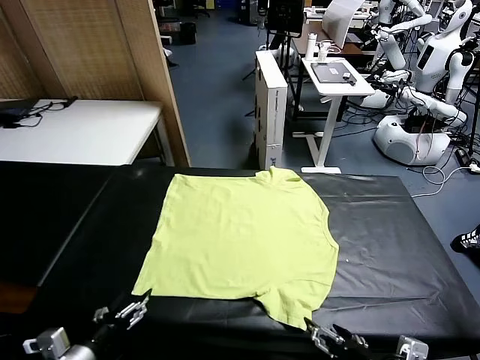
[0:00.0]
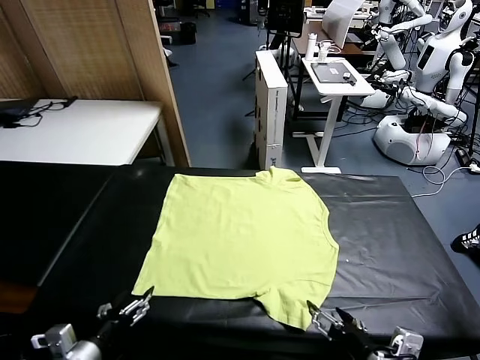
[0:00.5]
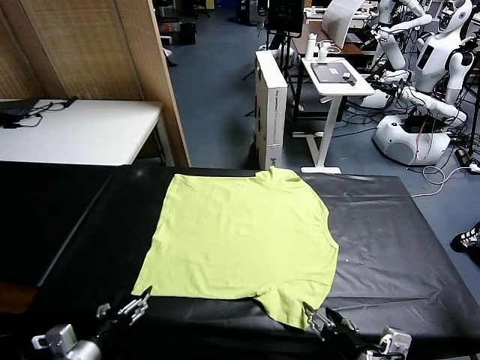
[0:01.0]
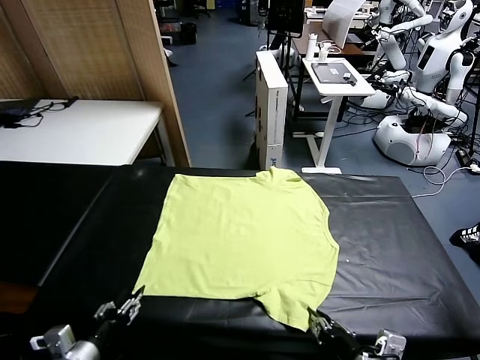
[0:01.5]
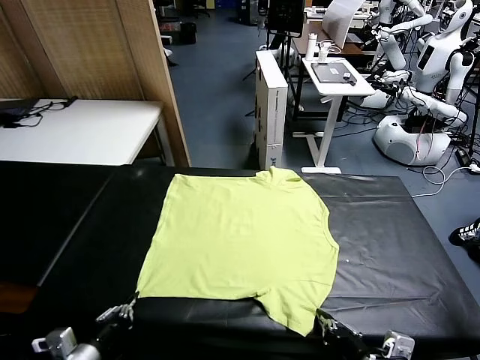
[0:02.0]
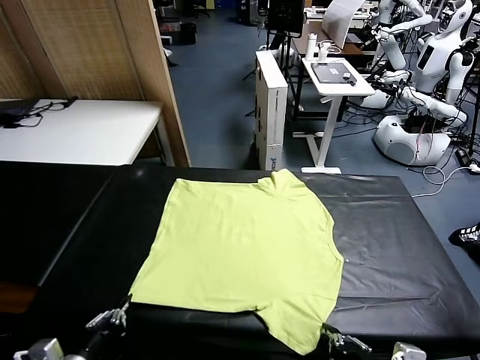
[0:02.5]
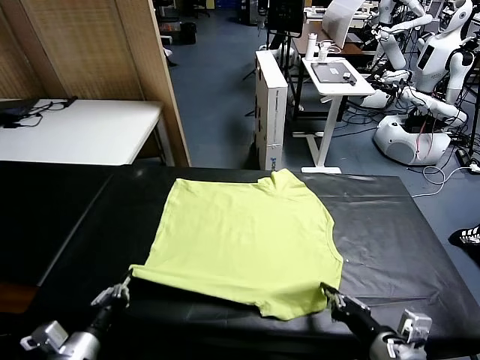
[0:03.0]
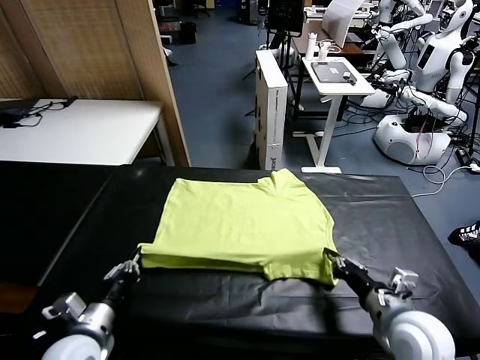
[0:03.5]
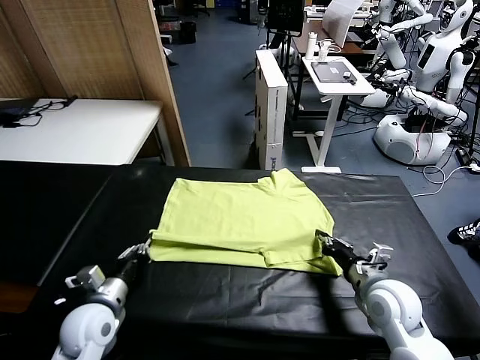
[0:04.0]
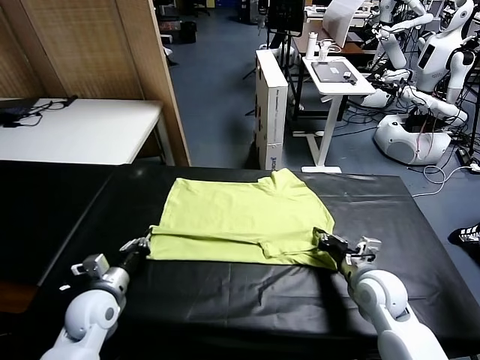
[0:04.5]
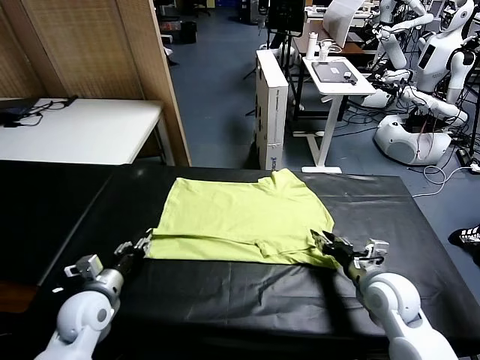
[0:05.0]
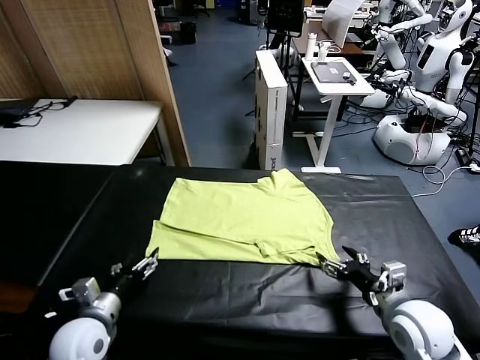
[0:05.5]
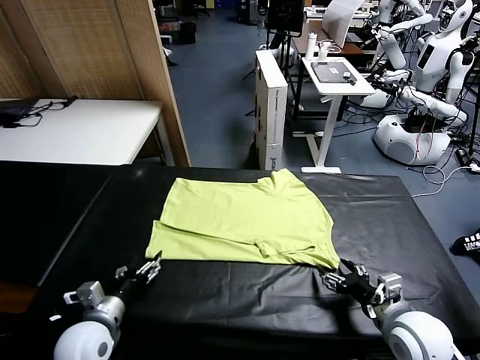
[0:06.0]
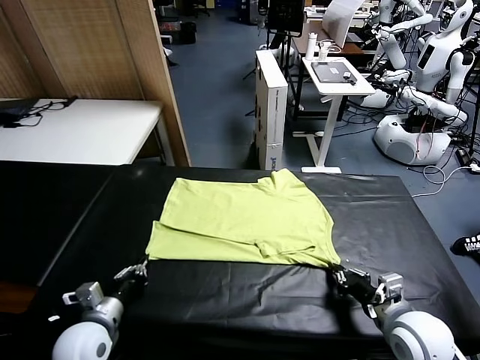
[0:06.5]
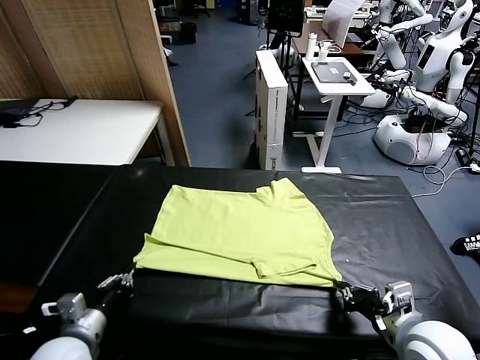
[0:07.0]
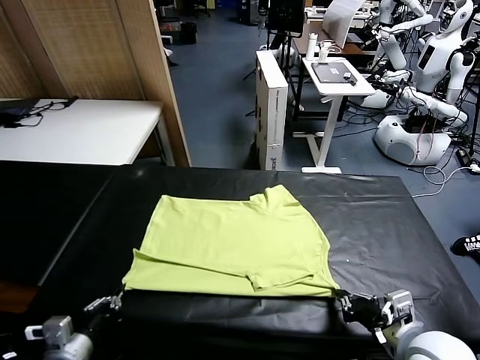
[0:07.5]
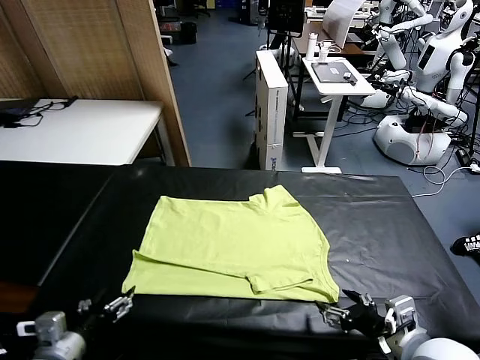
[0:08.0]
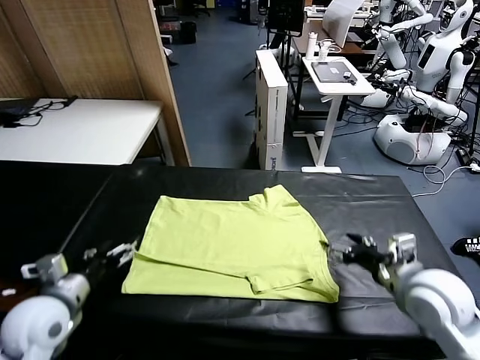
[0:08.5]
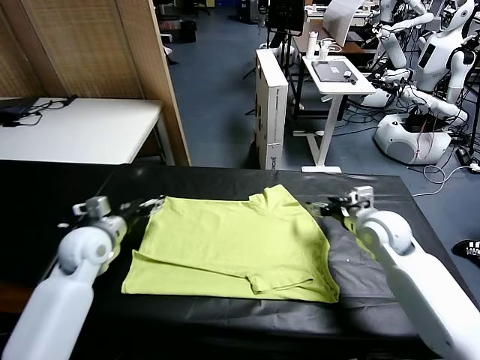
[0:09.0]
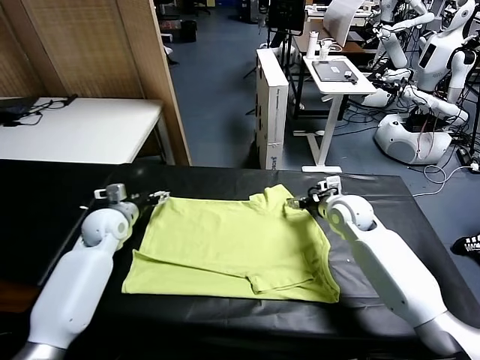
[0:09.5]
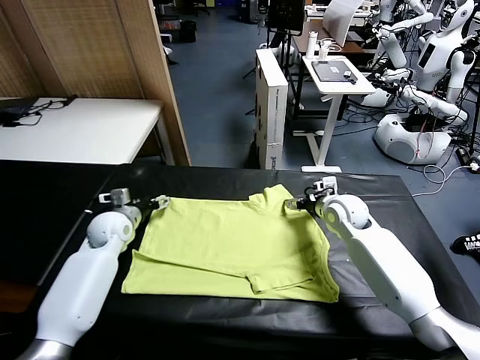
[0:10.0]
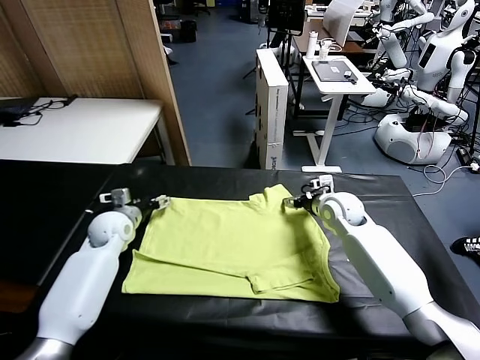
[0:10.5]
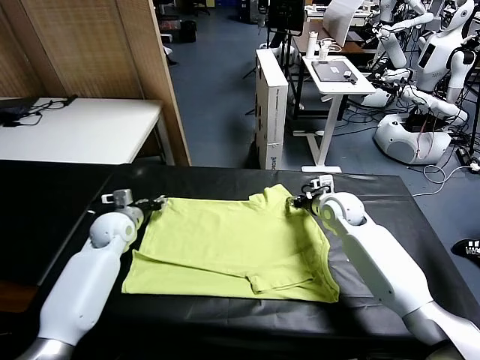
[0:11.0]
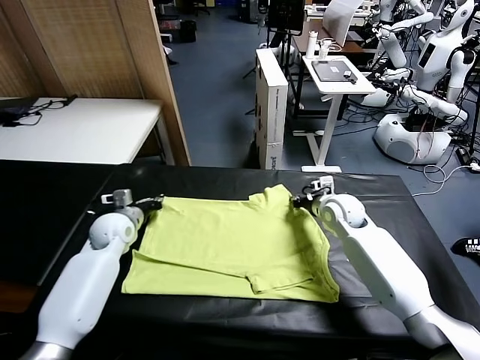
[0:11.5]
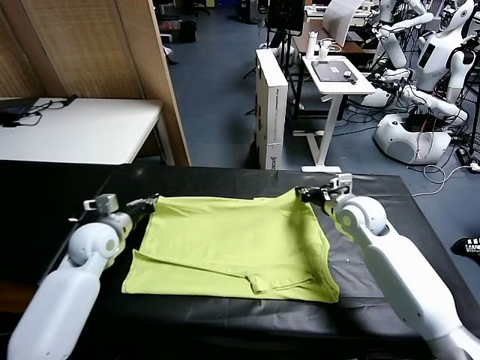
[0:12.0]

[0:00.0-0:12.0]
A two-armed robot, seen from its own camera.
Task of the whole recording: fold and organize the clothes.
Step, 0:00.0 to 0:02.0: use both grippers simultaneously to clamp the lower edge of the clothing fabric.
Step, 0:02.5 to 0:05.0: use both grippers to drag the lower edge of the fabric forward and fold it over the upper edge.
Step, 0:05.5 to 0:08.0: Drag the clothes downward with both gripper.
Step, 0:08.5 to 0:11.0: use both grippers simultaneously to clamp the upper edge of the clothing fabric.
0:02.0 to 0:04.0: The left gripper is displaced forward by roughly 15 cm, while the right gripper heads forward, covering roughly 20 cm.
0:04.0 to 0:06.0: The right gripper travels backward by roughly 10 cm, and opens, then closes again, while the left gripper opens.
0:06.0 to 0:08.0: The left gripper goes approximately 10 cm upward and backward, and opens; the right gripper moves upward, about 10 cm, and opens its fingers.
0:08.0 to 0:10.0: The grippers both shift forward by some 30 cm.
0:10.0 to 0:12.0: The right gripper goes approximately 10 cm backward, and closes, while the left gripper is displaced backward and upward by about 10 cm, and closes.

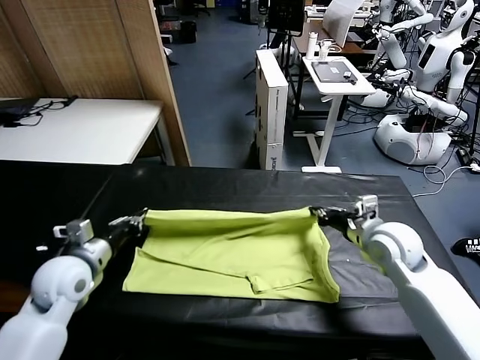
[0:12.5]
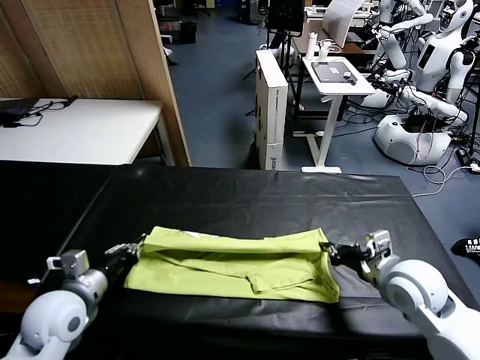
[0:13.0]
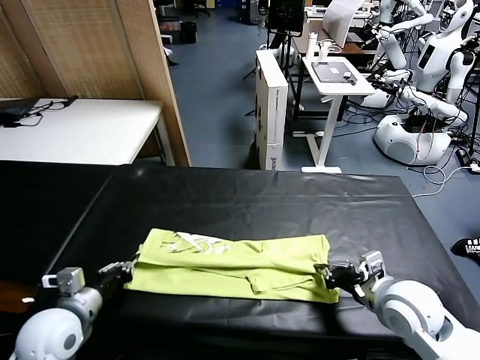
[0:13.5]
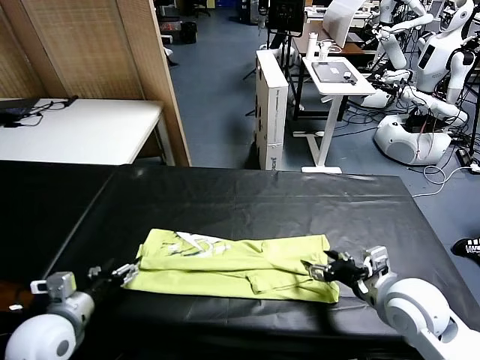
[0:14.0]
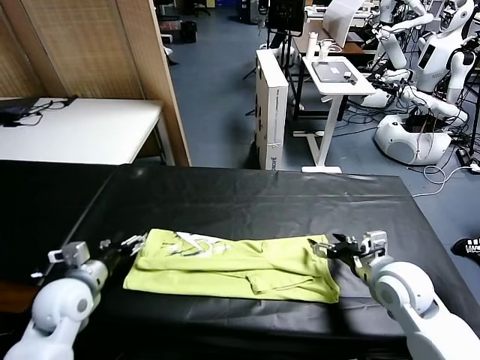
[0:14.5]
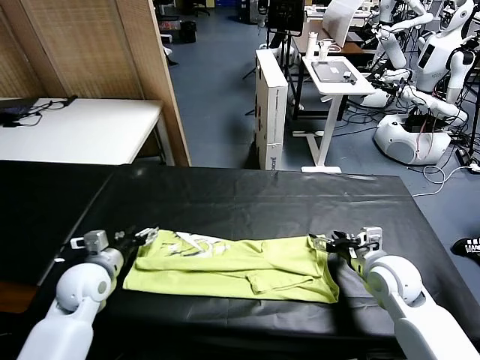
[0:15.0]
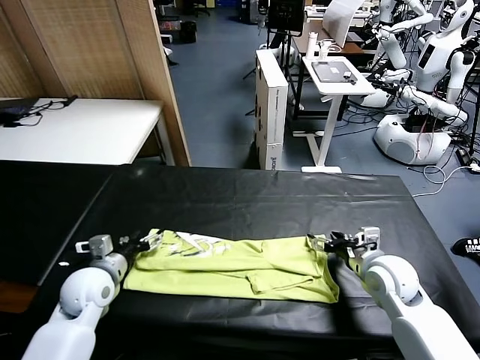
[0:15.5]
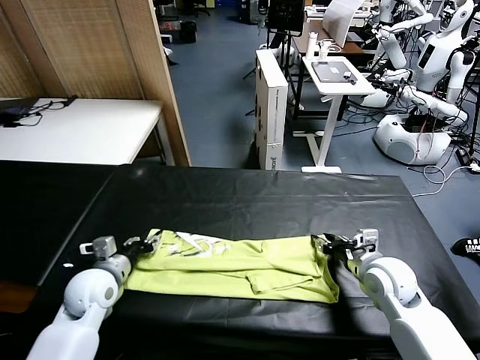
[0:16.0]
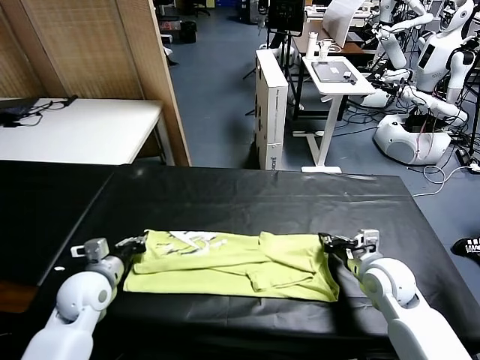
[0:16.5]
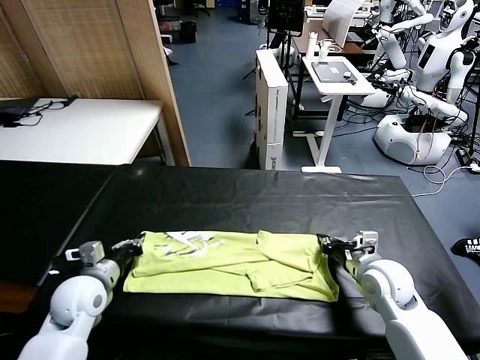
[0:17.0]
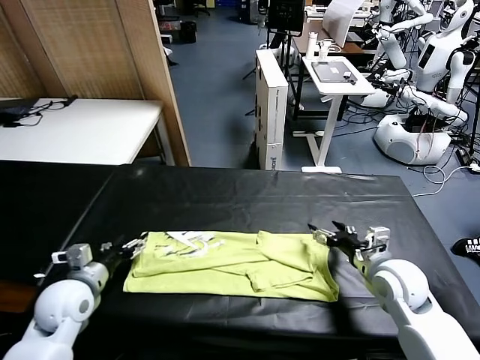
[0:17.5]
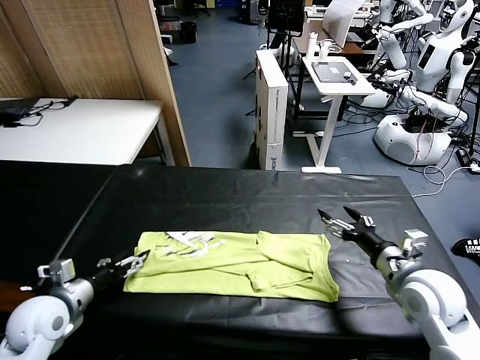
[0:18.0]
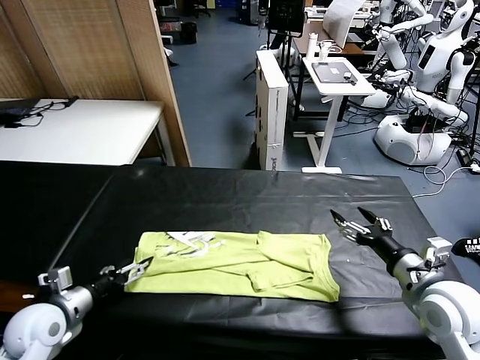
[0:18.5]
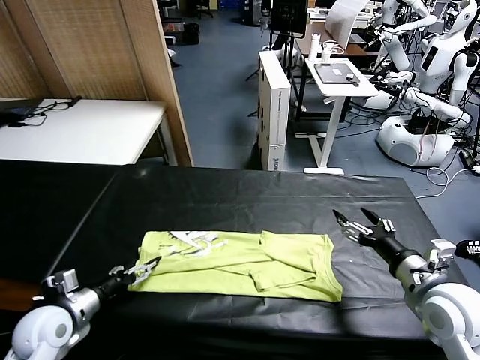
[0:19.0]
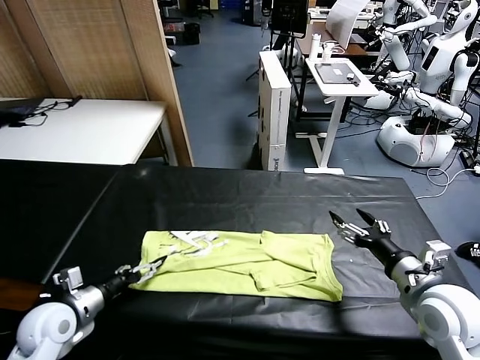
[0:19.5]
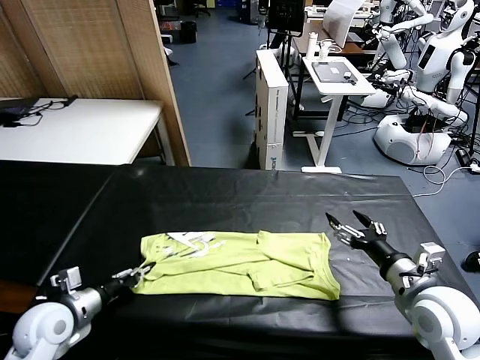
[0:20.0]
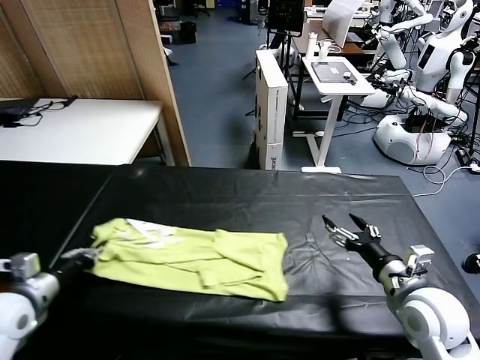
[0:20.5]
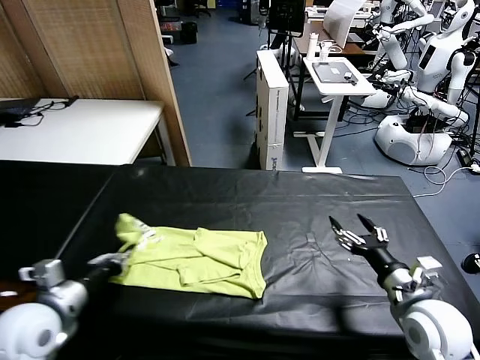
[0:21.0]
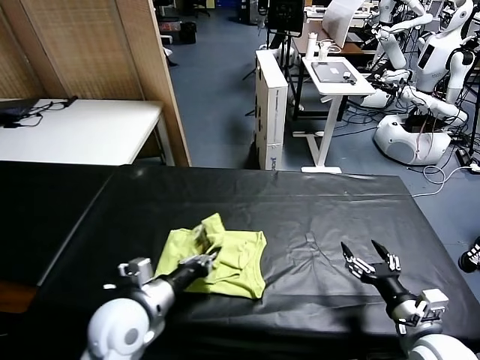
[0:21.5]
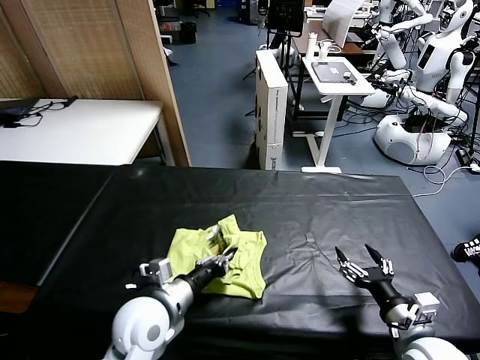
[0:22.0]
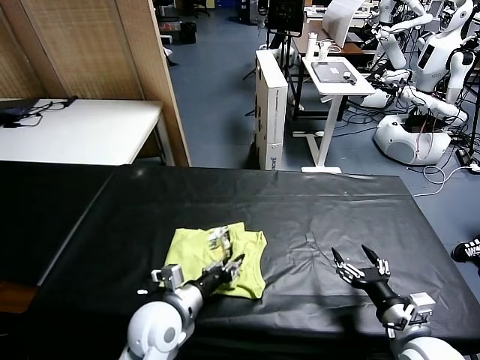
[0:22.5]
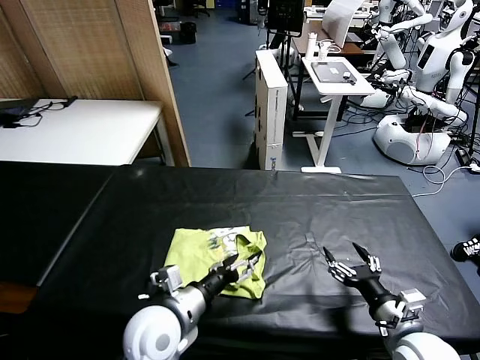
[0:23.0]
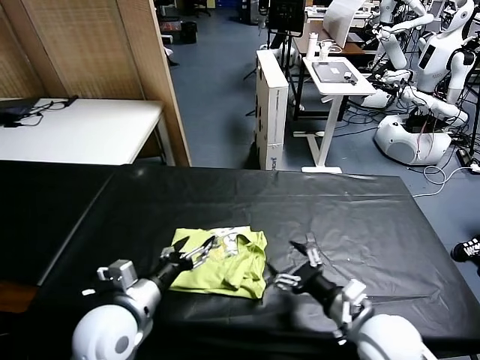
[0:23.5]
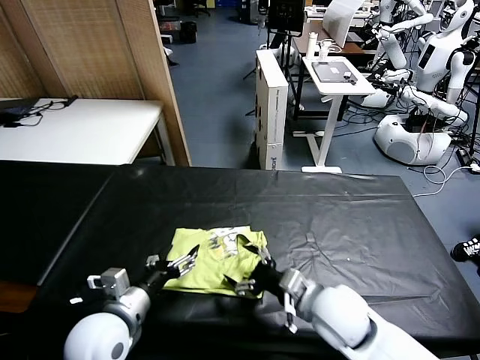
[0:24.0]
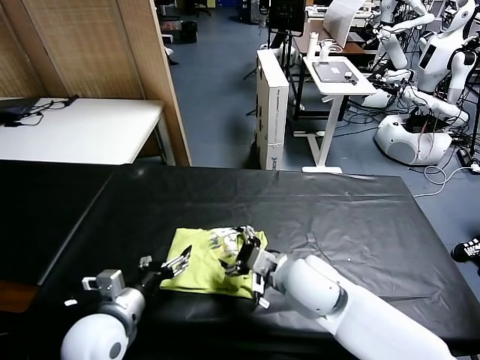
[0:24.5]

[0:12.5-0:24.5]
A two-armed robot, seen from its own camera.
Task of the whole recording: fold and organize the clothes.
Step, 0:14.5 to 0:20.0: use the left gripper to clamp the left edge of the fabric.
Step, 0:20.5 to 0:23.0: use the left gripper to drag the left edge of the fabric to the left and folds it over the right edge.
0:12.5 to 0:14.5: The left gripper travels backward and back again, about 5 cm each way, and opens up, while the right gripper opens up.
0:14.5 to 0:16.5: The left gripper closes up. The right gripper closes its fingers.
0:16.5 to 0:18.5: The right gripper is displaced backward, upward and to the right by some 15 cm, and opens up, while the left gripper shifts approximately 10 cm backward and to the left, and opens up.
0:18.5 to 0:20.5: The left gripper goes roughly 10 cm upward, and closes its fingers.
0:20.5 to 0:22.5: The right gripper shifts about 10 cm backward and downward. The left gripper heads to the right, covering roughly 30 cm, and opens its fingers.
0:22.5 to 0:24.5: The right gripper shifts about 20 cm to the left and forward. The left gripper heads to the left, covering about 10 cm.

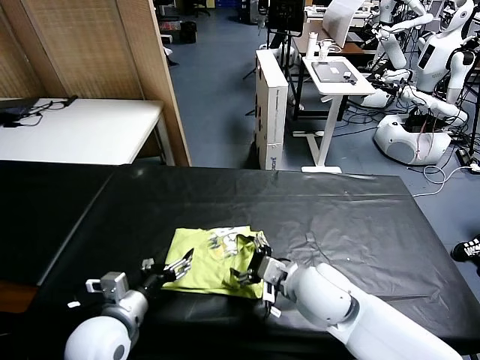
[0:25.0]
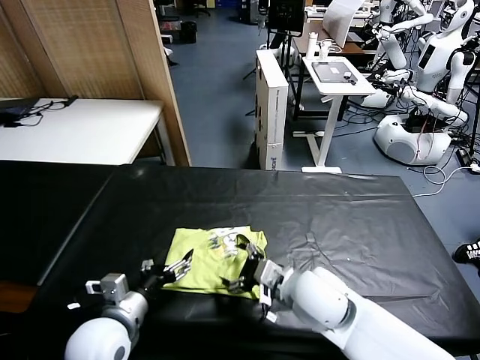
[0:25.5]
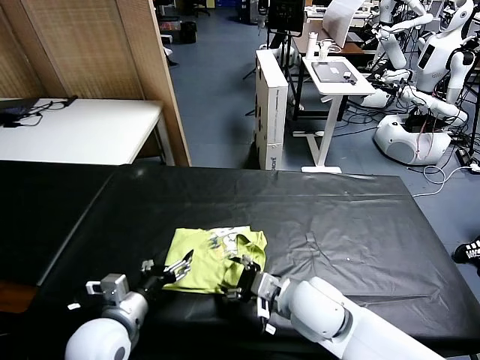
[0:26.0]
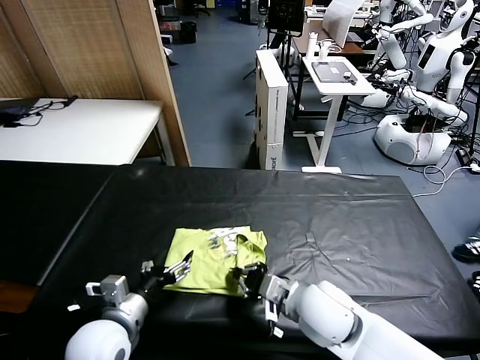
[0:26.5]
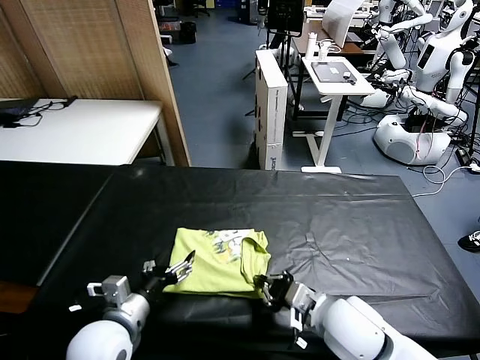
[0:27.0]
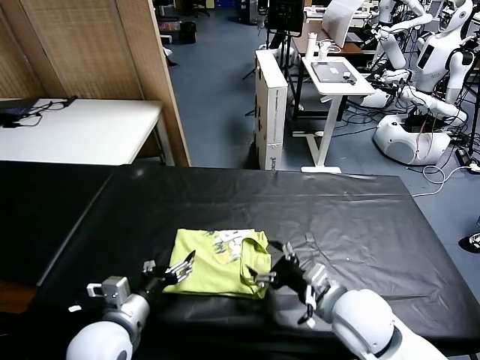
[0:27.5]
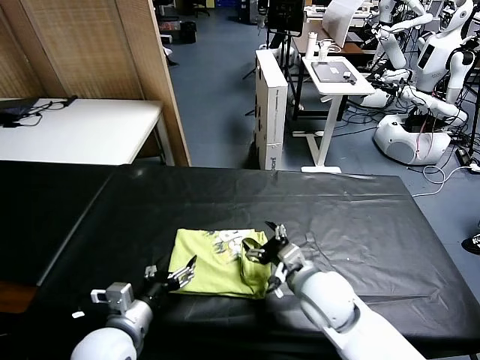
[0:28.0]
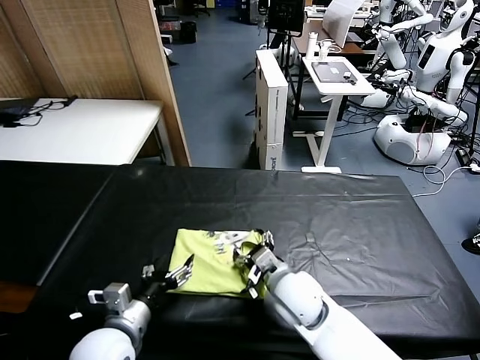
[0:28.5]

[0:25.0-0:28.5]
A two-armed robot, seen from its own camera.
Task of the whole recording: fold and organize the clothes.
0:25.0 to 0:27.0: The right gripper shifts roughly 10 cm backward and to the right, and closes, then opens again.
0:27.0 to 0:28.5: The right gripper heads to the left and forward, covering approximately 10 cm.
